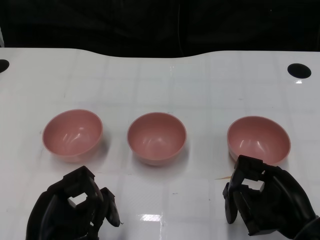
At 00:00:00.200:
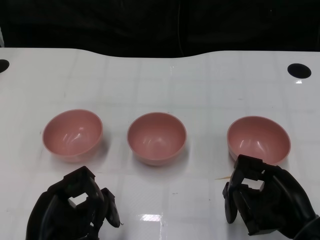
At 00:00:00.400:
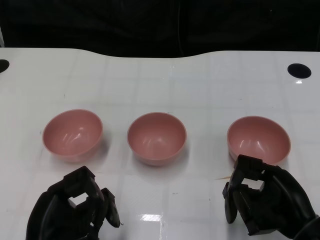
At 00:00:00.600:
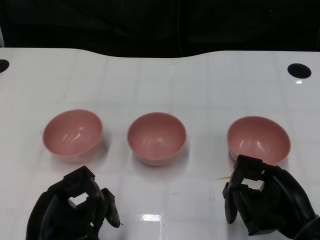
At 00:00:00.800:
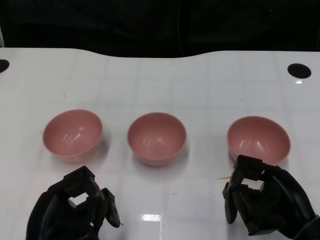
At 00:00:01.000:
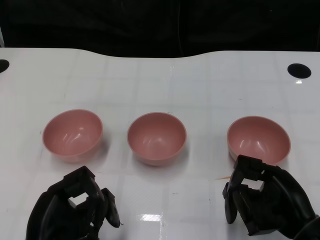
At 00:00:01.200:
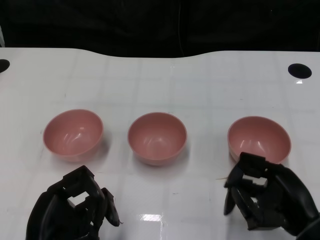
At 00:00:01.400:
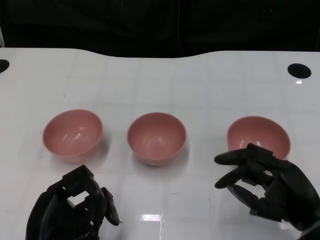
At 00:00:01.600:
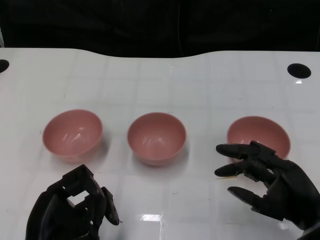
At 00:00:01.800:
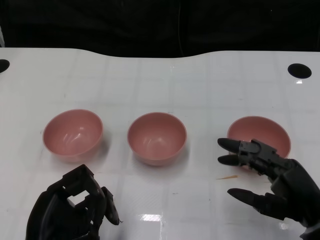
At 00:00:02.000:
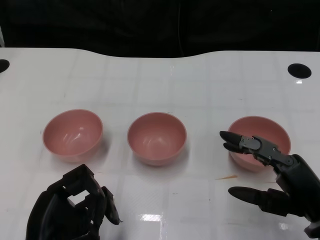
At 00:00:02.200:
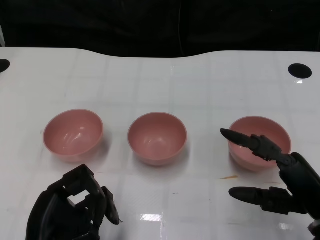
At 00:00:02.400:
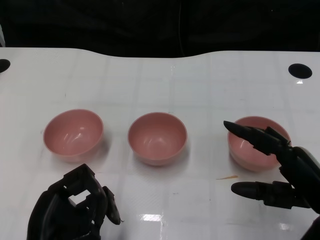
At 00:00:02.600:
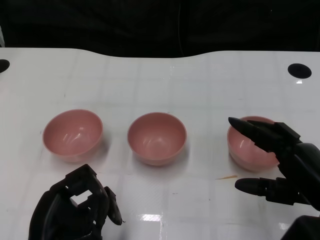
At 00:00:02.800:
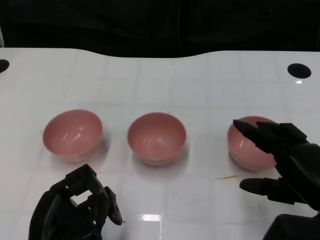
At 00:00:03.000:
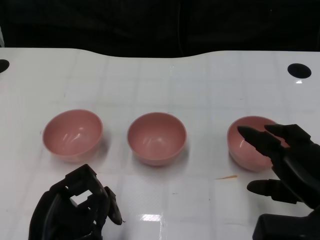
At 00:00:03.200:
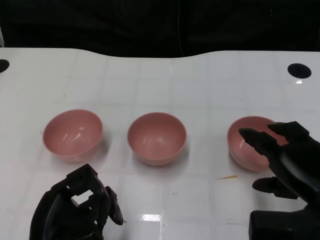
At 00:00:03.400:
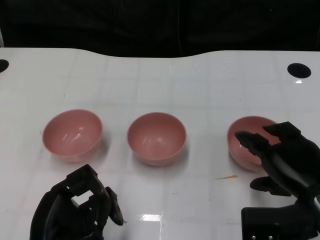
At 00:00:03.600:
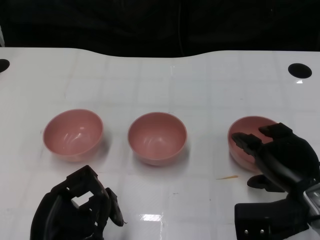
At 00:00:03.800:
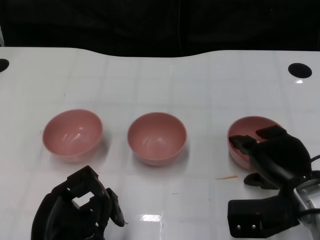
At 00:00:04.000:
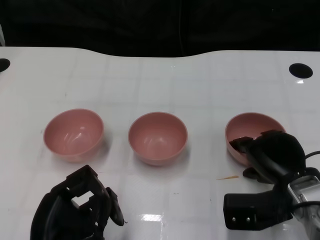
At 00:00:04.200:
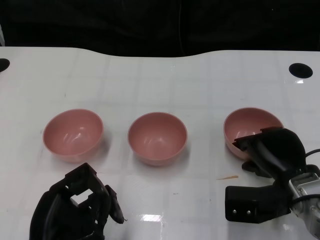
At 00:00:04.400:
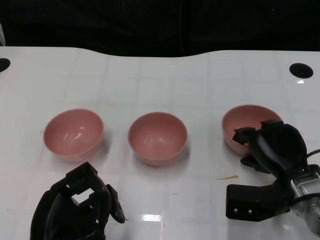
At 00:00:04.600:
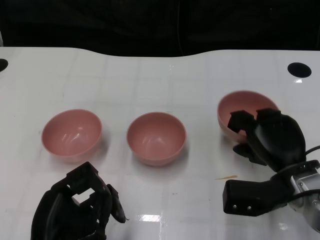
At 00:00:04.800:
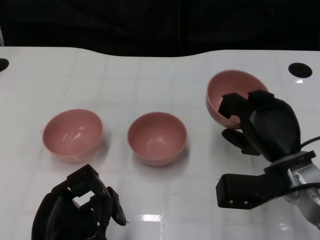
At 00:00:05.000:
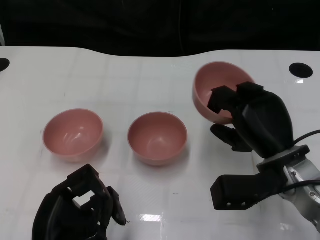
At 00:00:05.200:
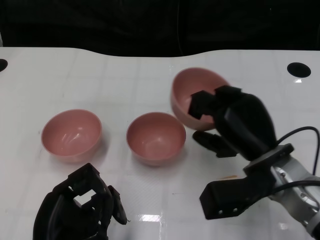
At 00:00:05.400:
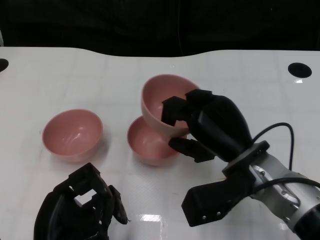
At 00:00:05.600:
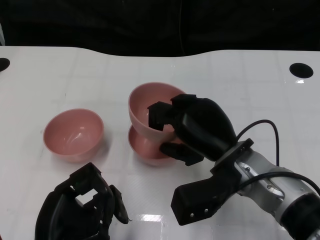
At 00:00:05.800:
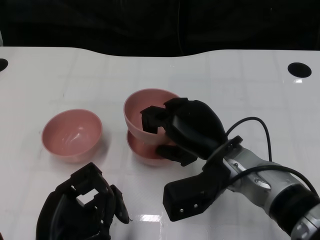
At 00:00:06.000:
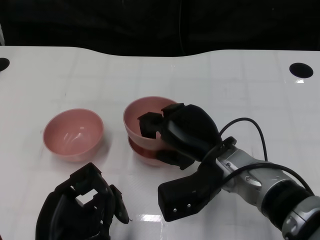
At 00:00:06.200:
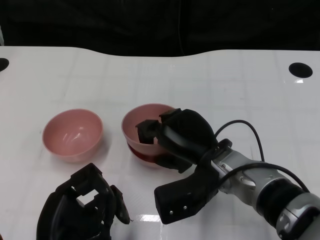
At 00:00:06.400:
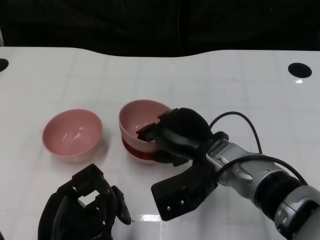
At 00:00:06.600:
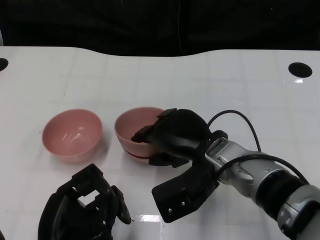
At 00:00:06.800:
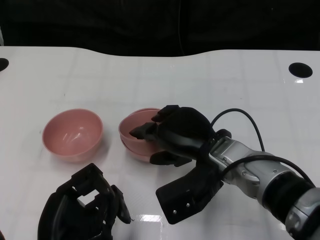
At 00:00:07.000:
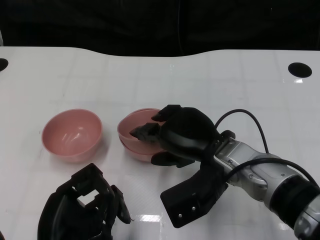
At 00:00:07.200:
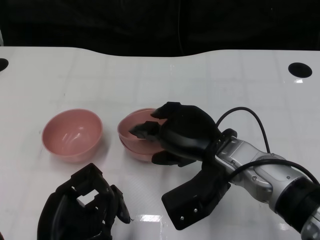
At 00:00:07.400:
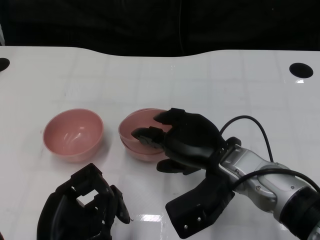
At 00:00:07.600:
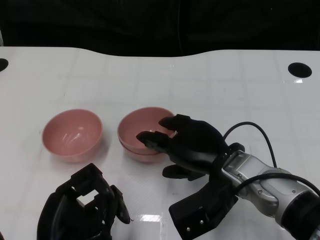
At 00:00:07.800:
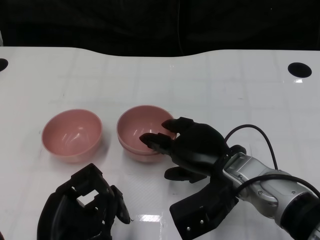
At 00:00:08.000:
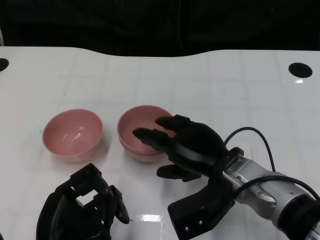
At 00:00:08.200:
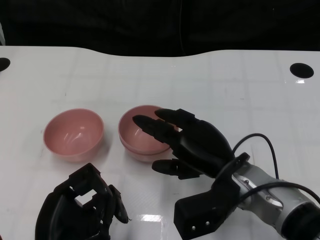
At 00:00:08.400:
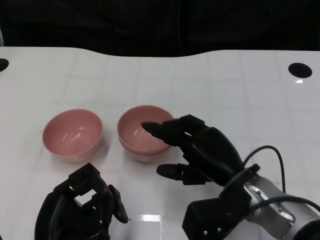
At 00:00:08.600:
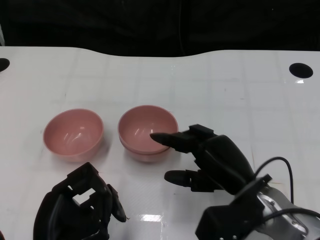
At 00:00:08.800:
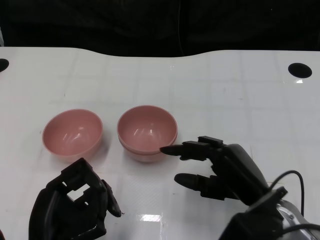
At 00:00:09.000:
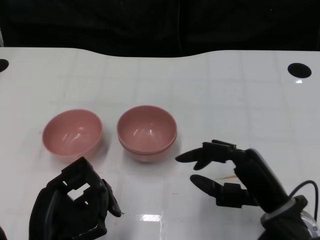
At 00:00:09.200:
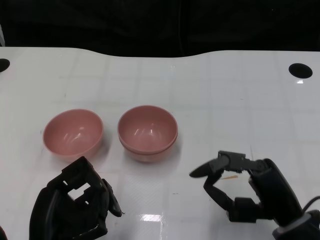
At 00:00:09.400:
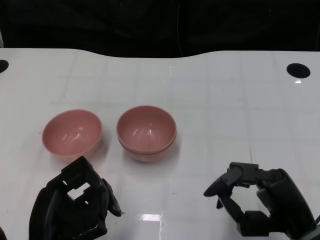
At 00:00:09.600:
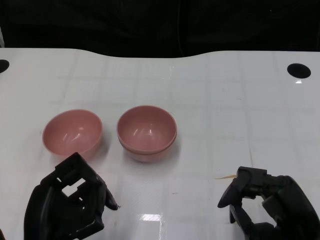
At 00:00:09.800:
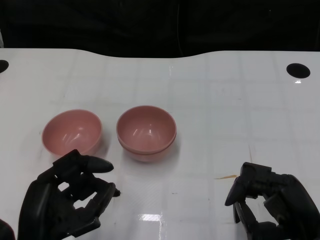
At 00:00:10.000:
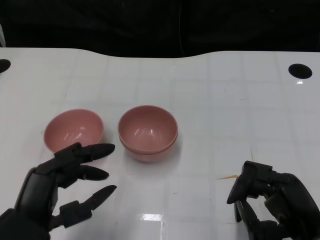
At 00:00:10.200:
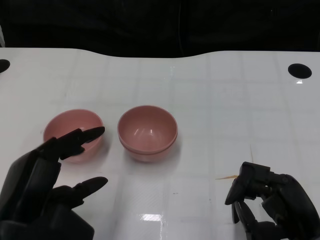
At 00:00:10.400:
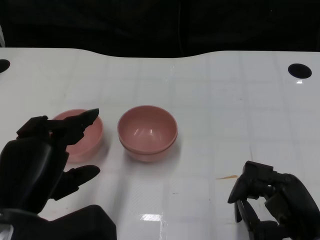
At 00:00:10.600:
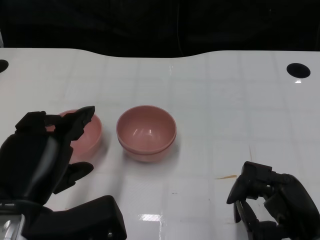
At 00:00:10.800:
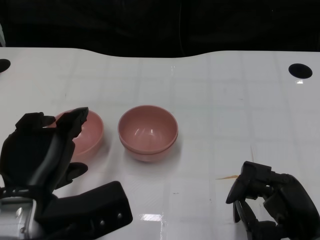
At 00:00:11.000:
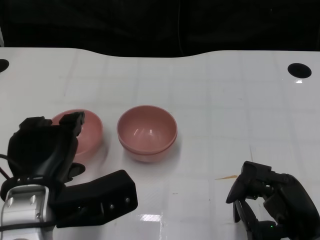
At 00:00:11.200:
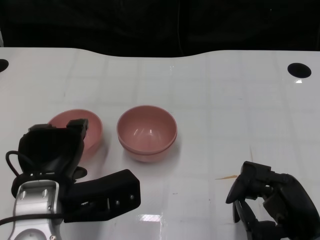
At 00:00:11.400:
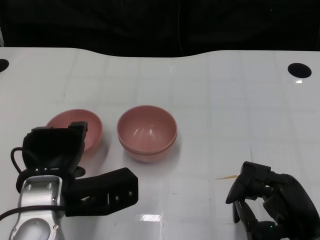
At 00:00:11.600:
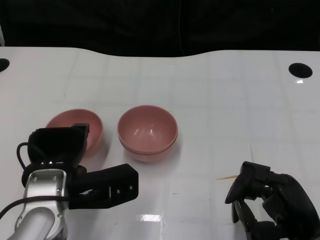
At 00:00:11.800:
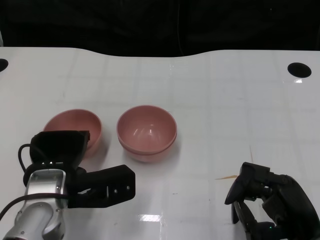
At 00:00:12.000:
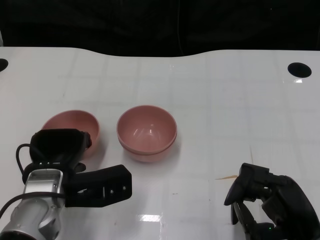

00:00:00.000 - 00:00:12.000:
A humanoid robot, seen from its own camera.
Task of the whole recording: Pick up the bowl on one side of the table and place it on top of the middle bowl, then pick up the bowl on the other side of the table and place it on top of the middle bowls.
Step, 00:00:01.200 - 00:00:04.400: Grasp the bowl on the right with the right gripper.
Step, 00:00:04.600 - 00:00:08.600: Place the bowl on the right onto the bowl in the middle with right gripper.
00:00:03.000 - 00:00:04.400: The right hand travels forward and downward by roughly 10 cm.
00:00:04.400 - 00:00:06.000: The right hand heads to the left, covering approximately 10 cm.
00:00:07.600 - 00:00:09.000: The right hand travels to the right and backward by approximately 10 cm.
00:00:09.000 - 00:00:10.400: The right hand moves roughly 5 cm; the left hand heads upward, covering approximately 5 cm.
00:00:10.400 - 00:00:12.000: The left hand is displaced forward and downward by approximately 10 cm.

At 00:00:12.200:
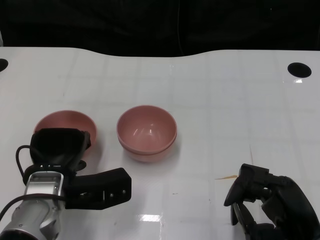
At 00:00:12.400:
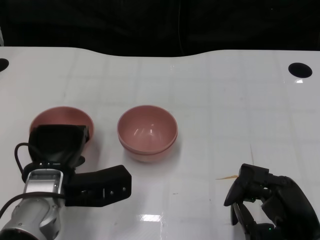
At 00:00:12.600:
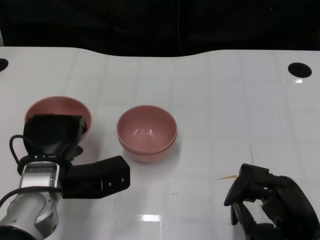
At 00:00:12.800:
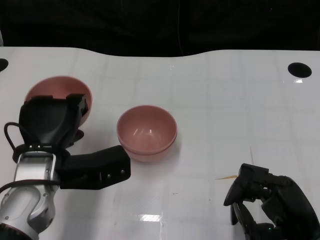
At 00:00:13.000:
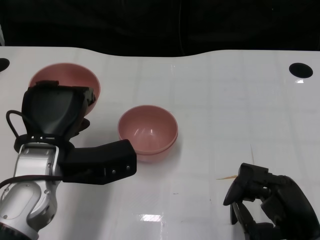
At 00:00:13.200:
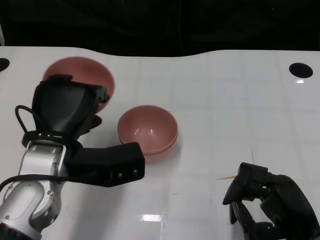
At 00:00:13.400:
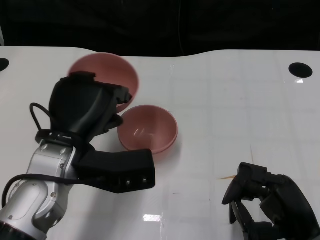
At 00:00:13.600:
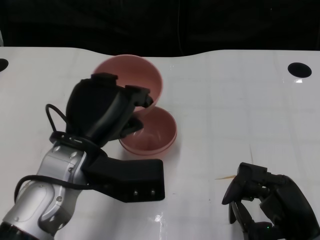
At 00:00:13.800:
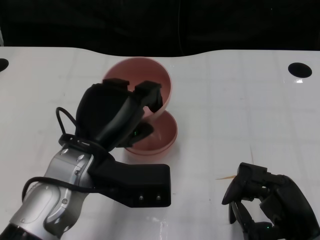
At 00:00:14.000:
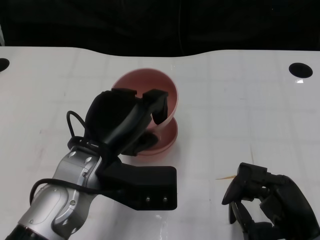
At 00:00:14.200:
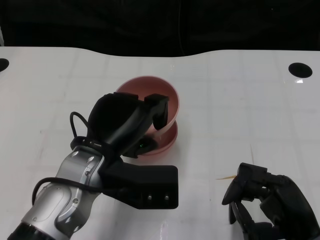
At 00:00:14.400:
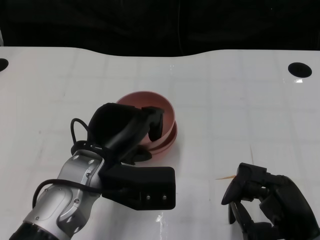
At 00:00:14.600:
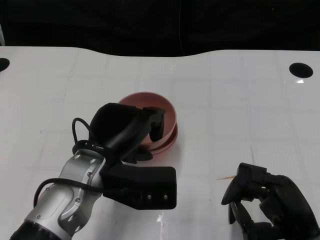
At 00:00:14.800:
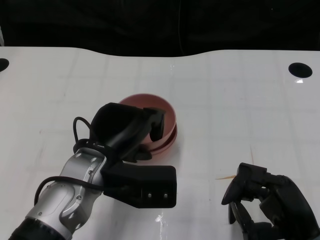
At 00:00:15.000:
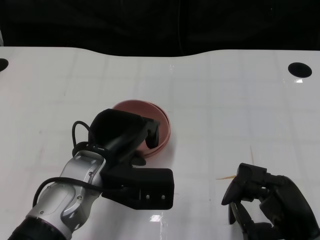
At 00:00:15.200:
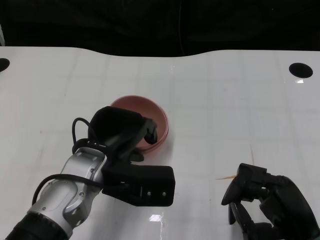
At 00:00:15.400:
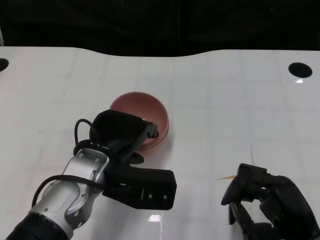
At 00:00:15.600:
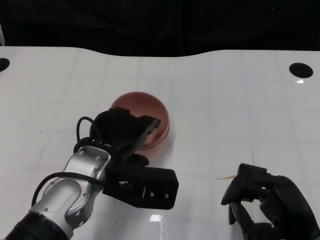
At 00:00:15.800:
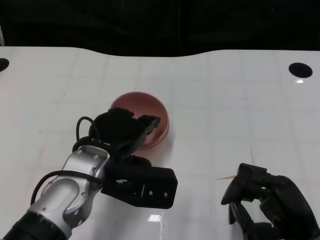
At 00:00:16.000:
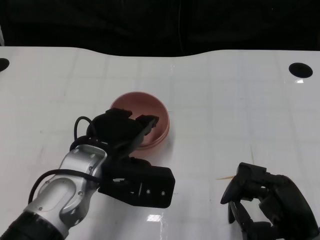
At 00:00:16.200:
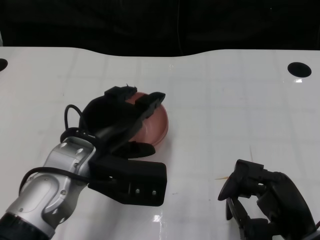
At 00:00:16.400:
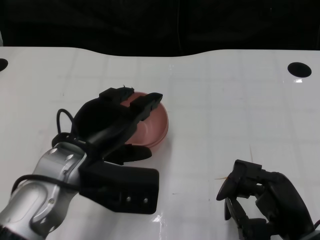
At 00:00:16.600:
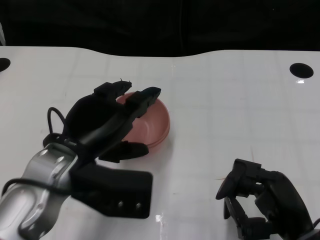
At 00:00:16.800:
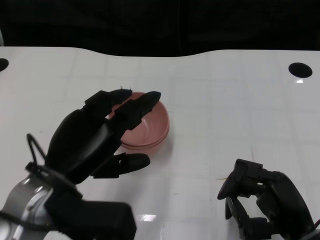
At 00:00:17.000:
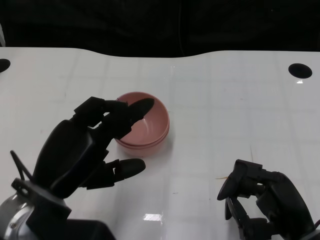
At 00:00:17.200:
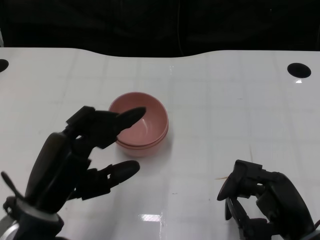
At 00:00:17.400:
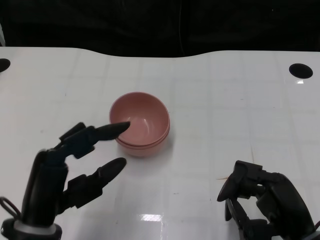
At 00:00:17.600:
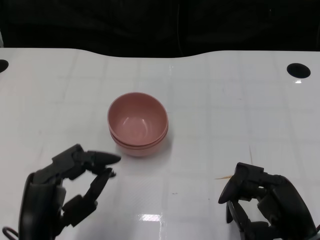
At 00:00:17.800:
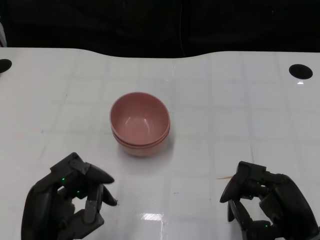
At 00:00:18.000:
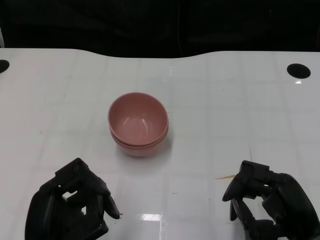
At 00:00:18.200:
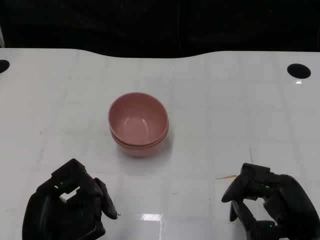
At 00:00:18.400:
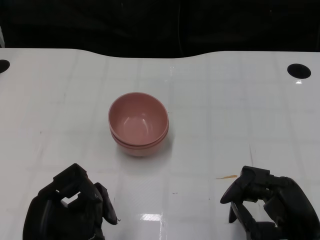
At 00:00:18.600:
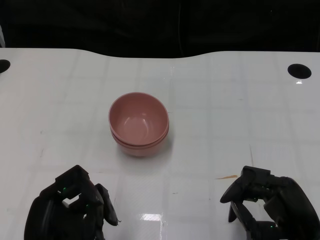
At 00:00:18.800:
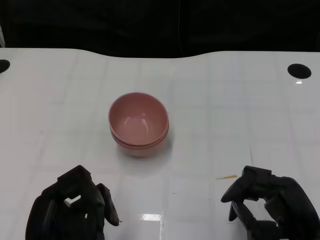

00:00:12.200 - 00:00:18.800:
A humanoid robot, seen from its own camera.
Task of the whole recording: Pick up the bowl on one side of the table and place it on top of the middle bowl, then pick up the bowl on the other side of the table and place it on top of the middle bowls.
Step, 00:00:12.600 - 00:00:16.800: Place the bowl on the left onto the bowl in the middle with left gripper.
00:00:12.200 - 00:00:13.800: The left hand shifts about 10 cm upward.
00:00:15.400 - 00:00:17.200: The left hand is displaced backward and to the left by roughly 10 cm.
00:00:17.200 - 00:00:18.800: The left hand heads downward and backward, covering some 10 cm.
